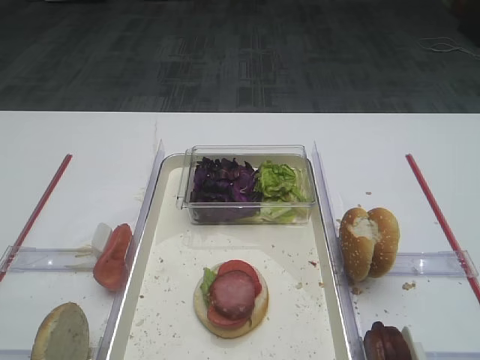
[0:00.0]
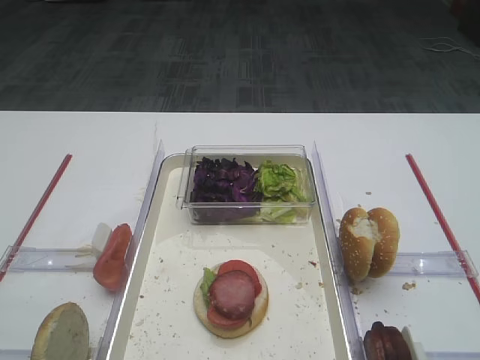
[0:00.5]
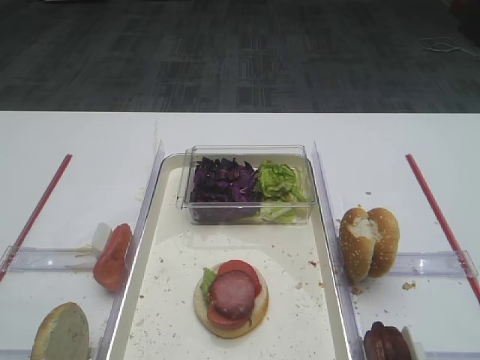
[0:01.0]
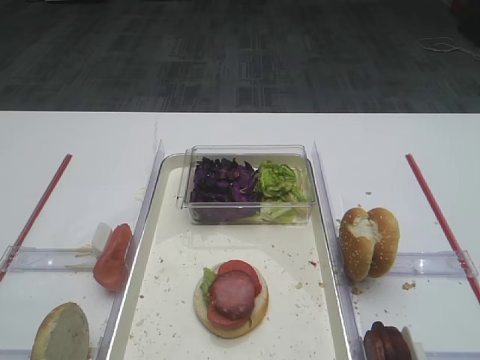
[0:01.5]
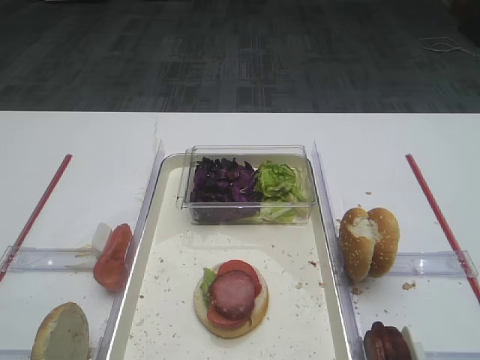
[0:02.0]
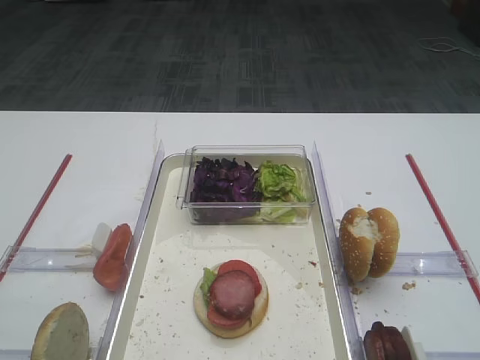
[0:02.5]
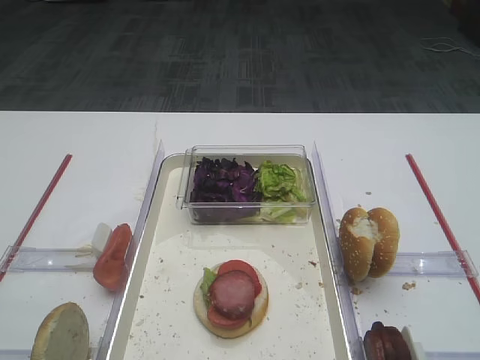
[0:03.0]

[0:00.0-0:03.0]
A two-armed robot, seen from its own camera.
0:00.0 to 0:03.0: The two grippers keep their place.

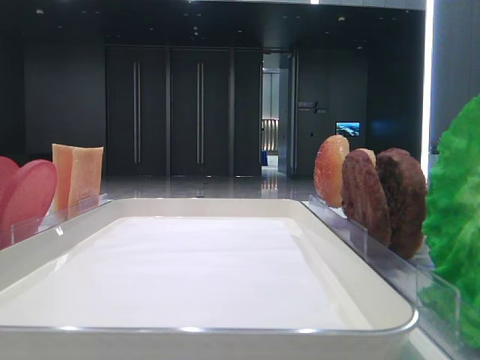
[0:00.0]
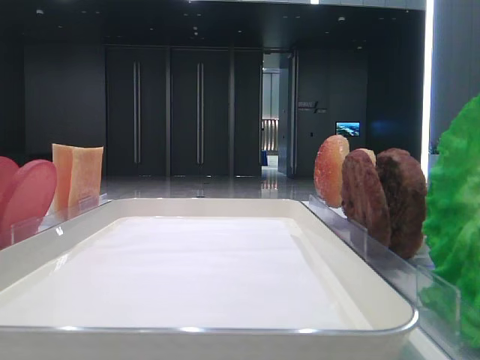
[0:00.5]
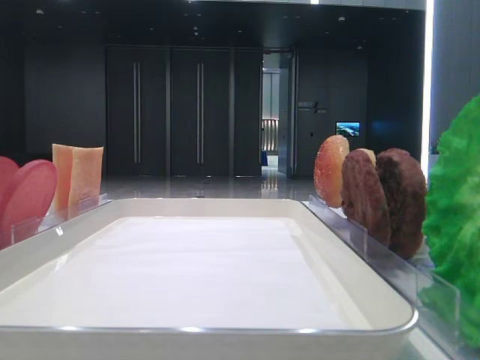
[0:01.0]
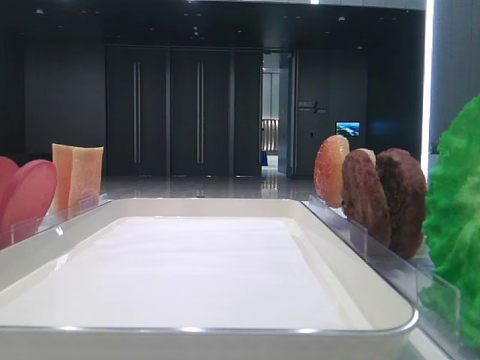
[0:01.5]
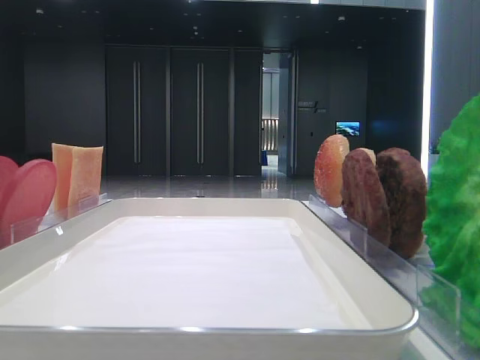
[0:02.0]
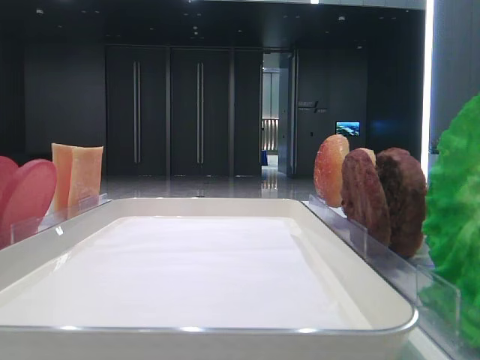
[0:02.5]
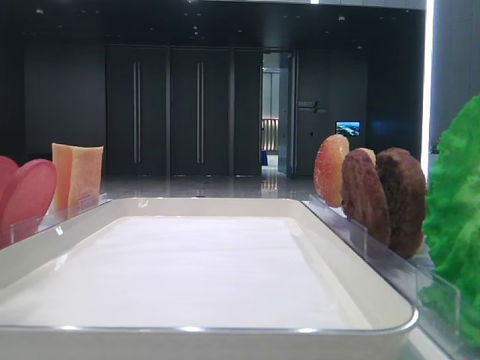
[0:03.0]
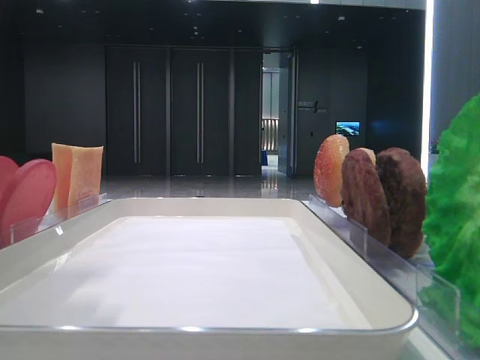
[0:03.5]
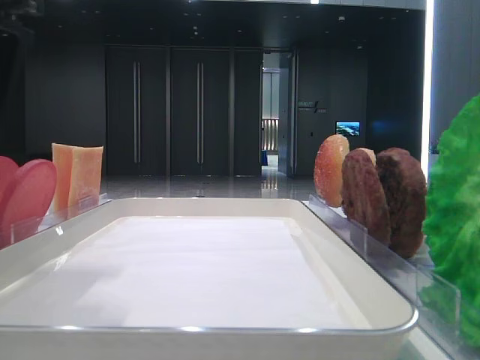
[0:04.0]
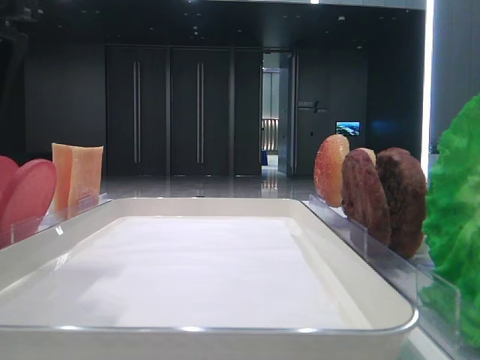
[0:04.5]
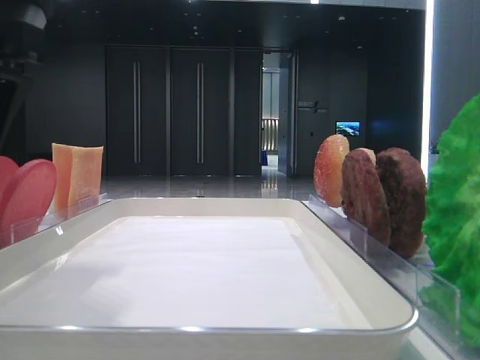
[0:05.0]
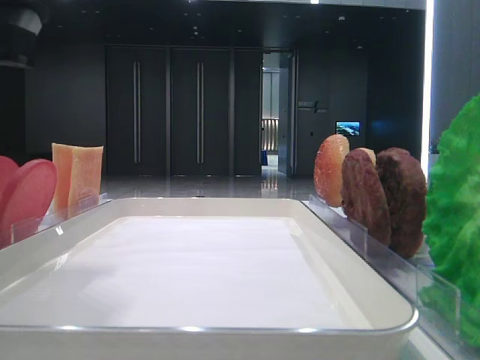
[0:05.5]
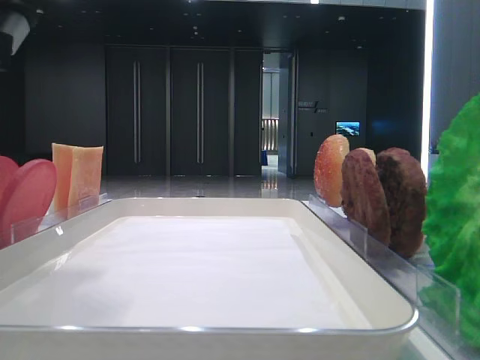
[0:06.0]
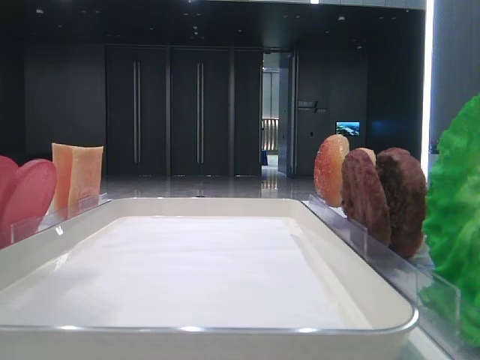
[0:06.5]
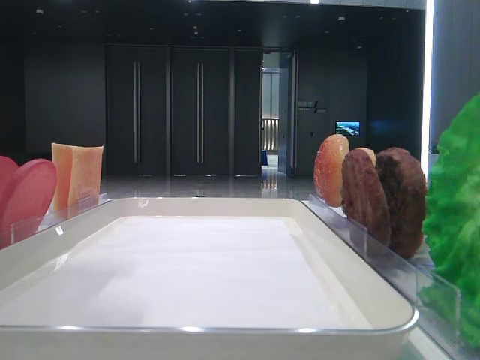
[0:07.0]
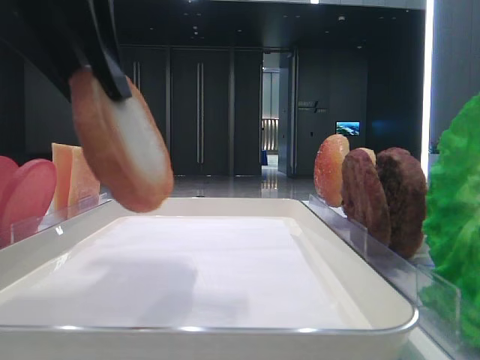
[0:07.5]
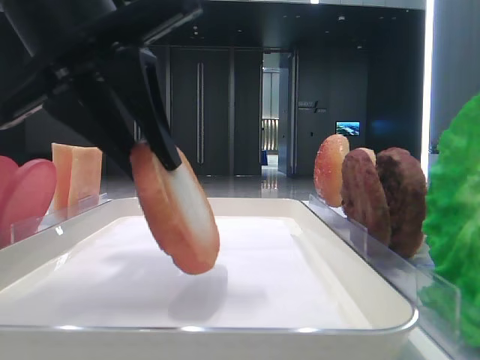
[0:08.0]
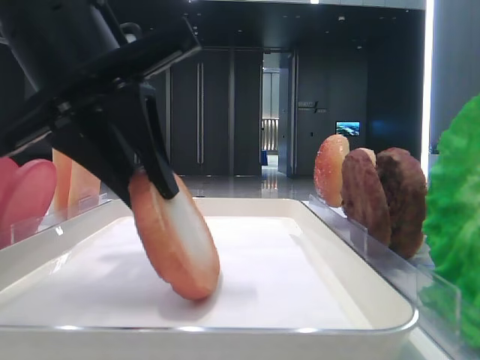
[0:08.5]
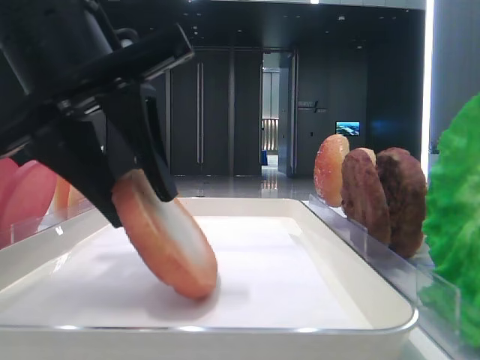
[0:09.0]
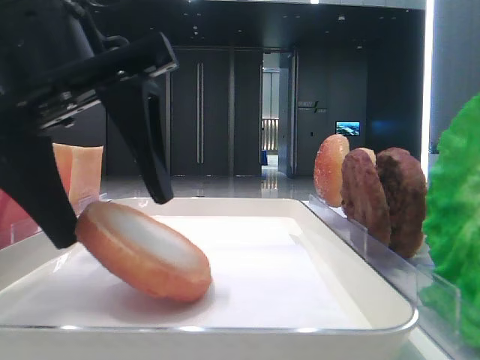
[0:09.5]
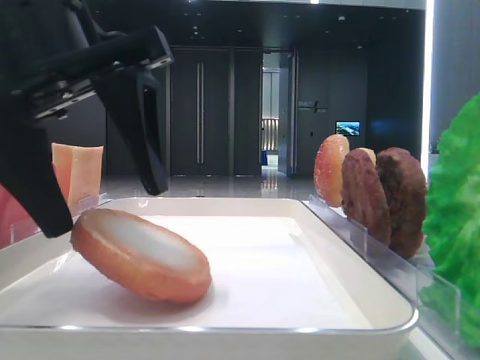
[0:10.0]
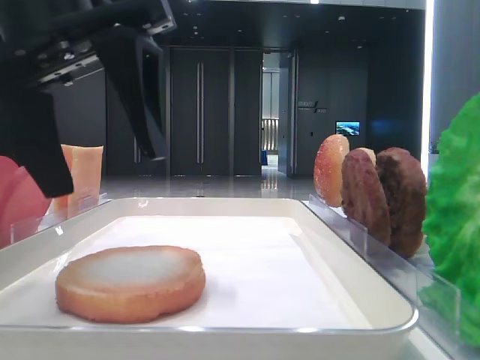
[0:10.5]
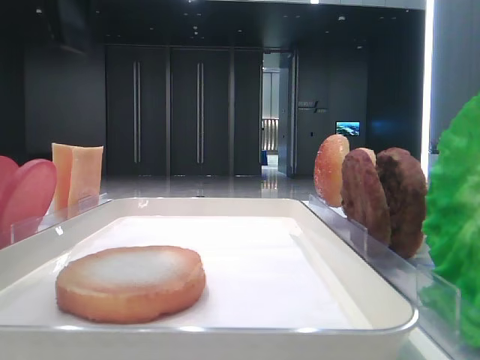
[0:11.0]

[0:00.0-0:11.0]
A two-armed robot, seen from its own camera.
Step, 0:00.0 to 0:06.0: Pick up the bottom bread with the left hand.
Step, 0:06.5 to 0:10.0: Place the bread on the tray with the left hand.
0:02.0 to 0:03.5: The left gripper shifts about 15 cm to the right, forward and downward.
0:05.5 to 0:07.5: The left gripper changes place by about 5 cm.
0:07.5 to 0:09.0: The left gripper moves downward, about 5 cm.
0:09.0 to 0:11.0: The left gripper travels upward by approximately 10 cm, and opens up.

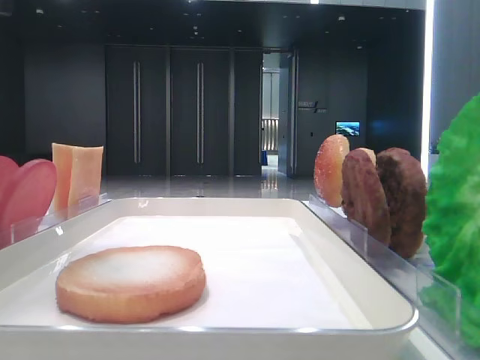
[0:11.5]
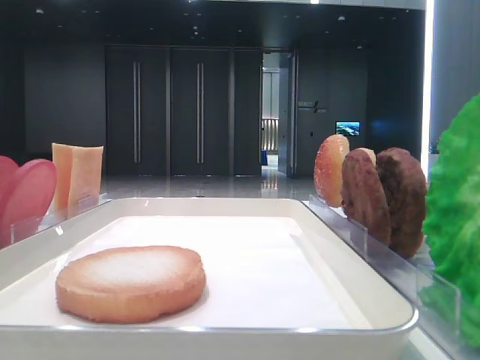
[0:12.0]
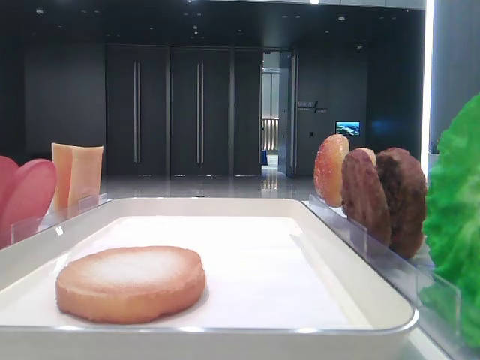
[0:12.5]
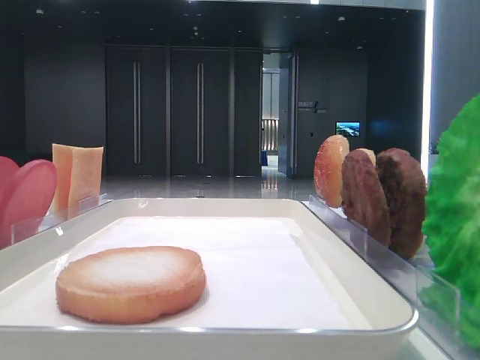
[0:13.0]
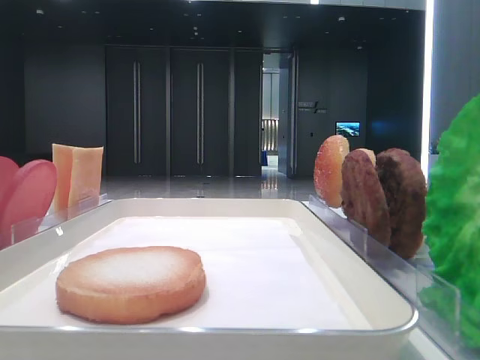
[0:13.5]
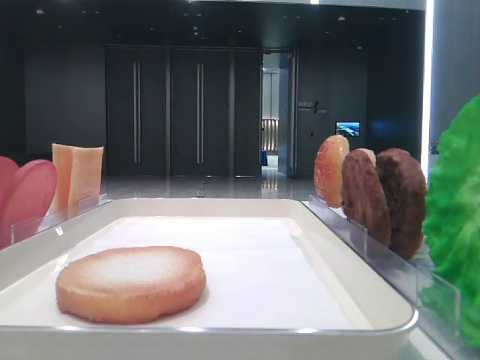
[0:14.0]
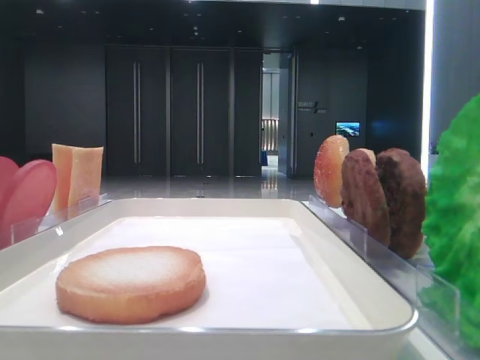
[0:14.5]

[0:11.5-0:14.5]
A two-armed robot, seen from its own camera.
0:11.5 to 0:13.0: The left gripper heads backward and to the left, covering approximately 25 cm.
